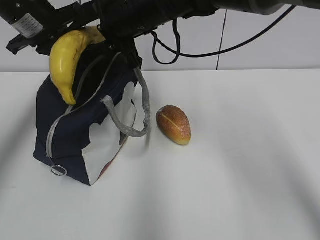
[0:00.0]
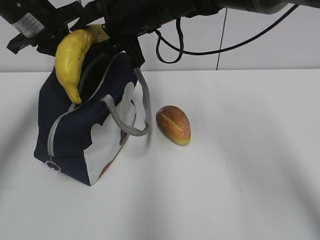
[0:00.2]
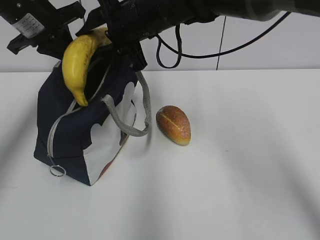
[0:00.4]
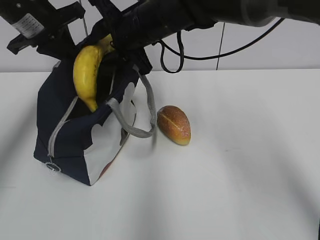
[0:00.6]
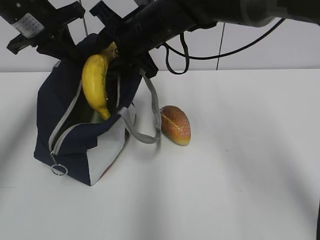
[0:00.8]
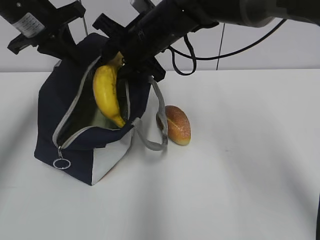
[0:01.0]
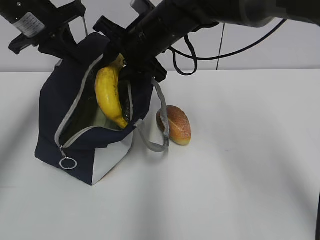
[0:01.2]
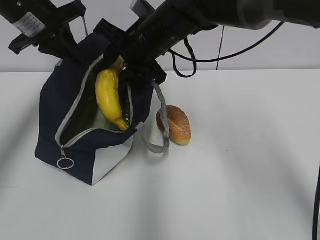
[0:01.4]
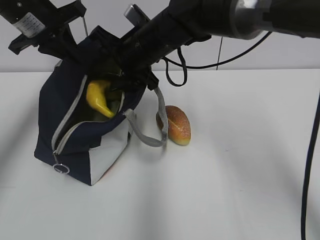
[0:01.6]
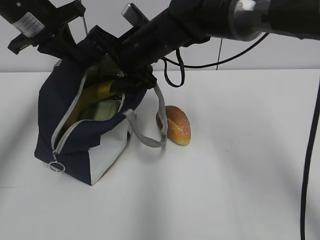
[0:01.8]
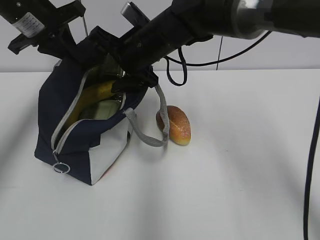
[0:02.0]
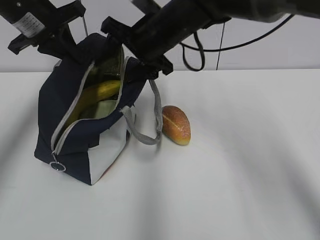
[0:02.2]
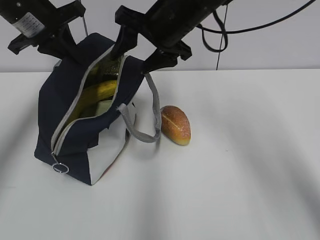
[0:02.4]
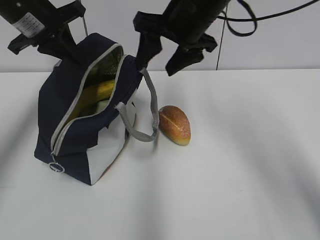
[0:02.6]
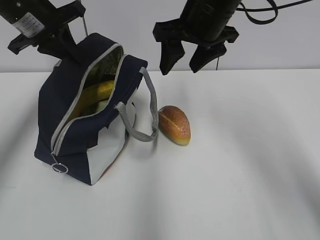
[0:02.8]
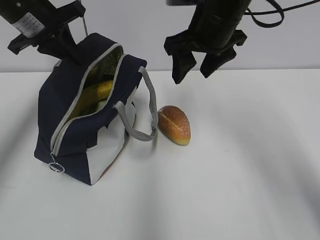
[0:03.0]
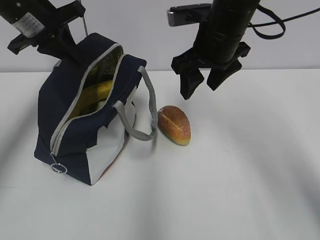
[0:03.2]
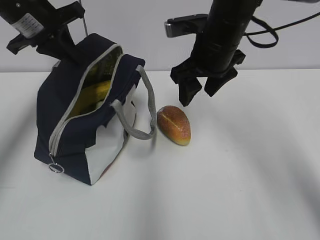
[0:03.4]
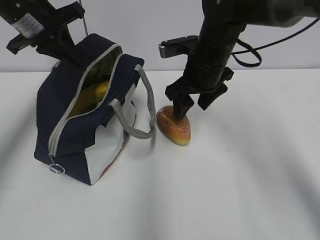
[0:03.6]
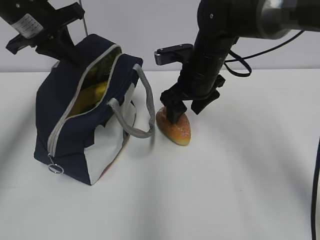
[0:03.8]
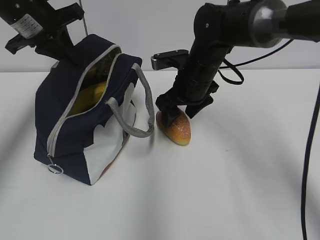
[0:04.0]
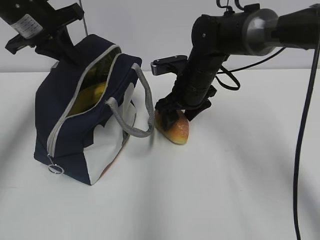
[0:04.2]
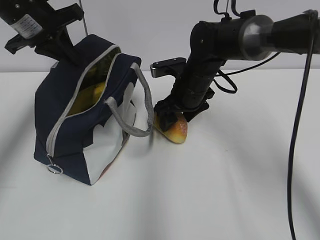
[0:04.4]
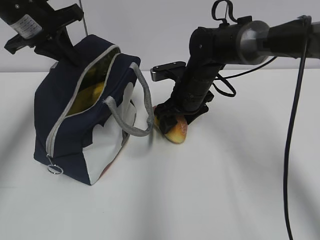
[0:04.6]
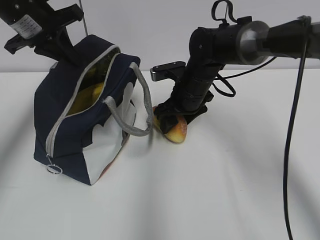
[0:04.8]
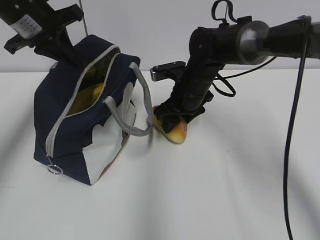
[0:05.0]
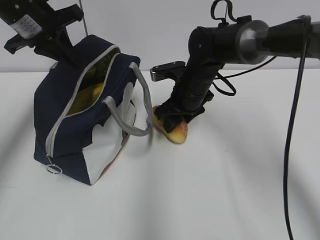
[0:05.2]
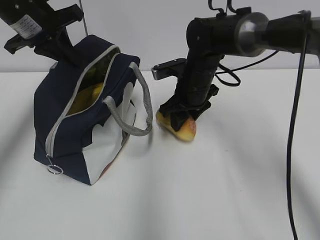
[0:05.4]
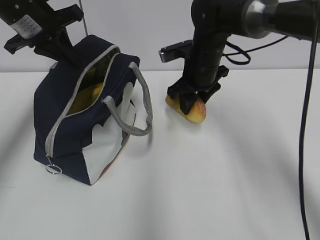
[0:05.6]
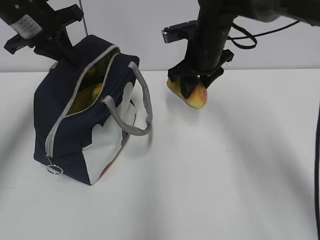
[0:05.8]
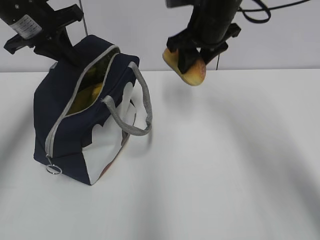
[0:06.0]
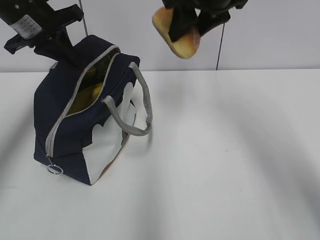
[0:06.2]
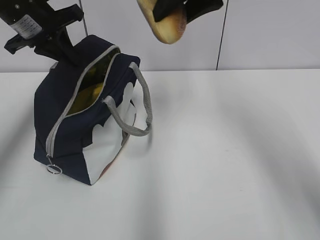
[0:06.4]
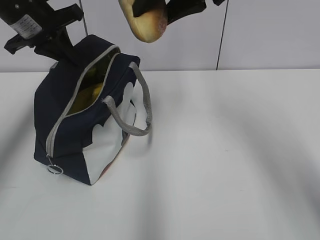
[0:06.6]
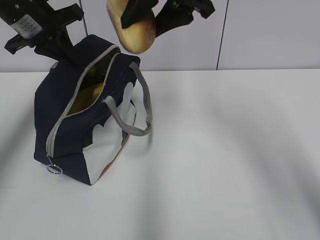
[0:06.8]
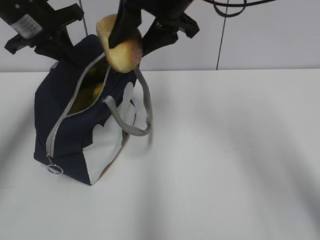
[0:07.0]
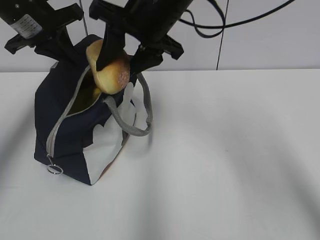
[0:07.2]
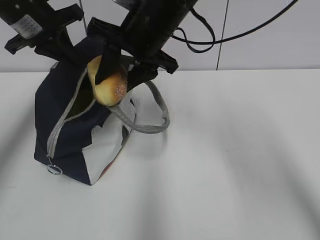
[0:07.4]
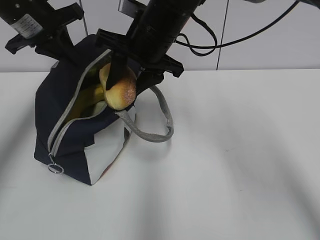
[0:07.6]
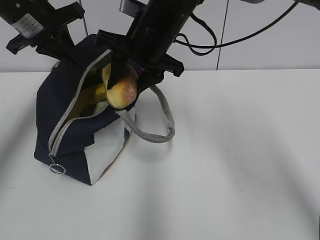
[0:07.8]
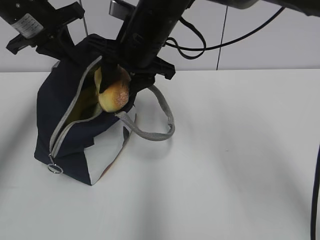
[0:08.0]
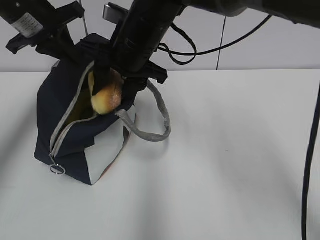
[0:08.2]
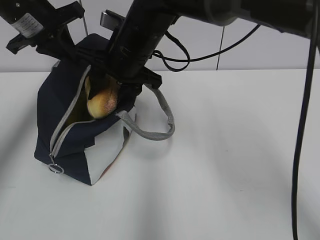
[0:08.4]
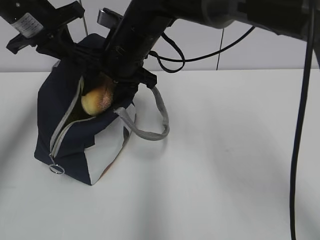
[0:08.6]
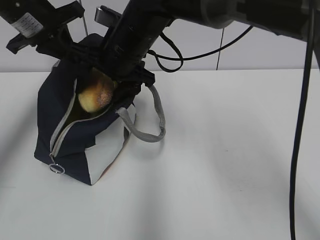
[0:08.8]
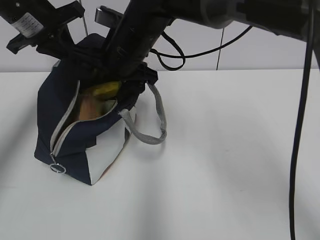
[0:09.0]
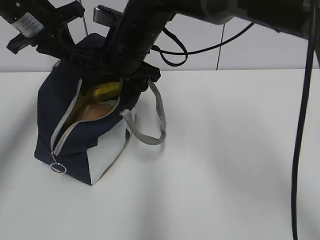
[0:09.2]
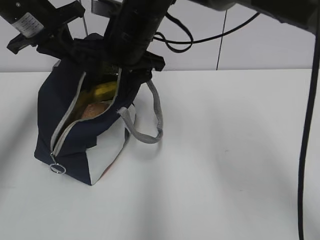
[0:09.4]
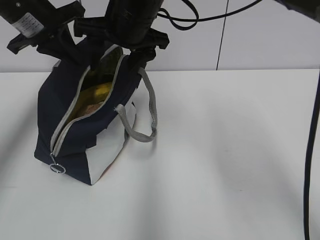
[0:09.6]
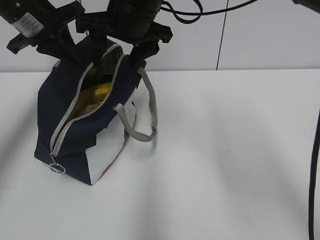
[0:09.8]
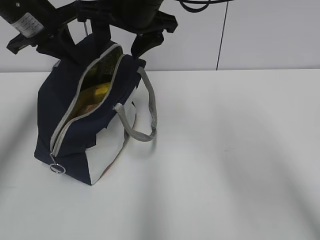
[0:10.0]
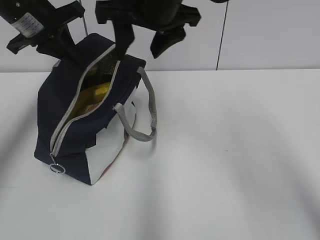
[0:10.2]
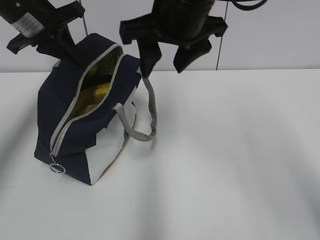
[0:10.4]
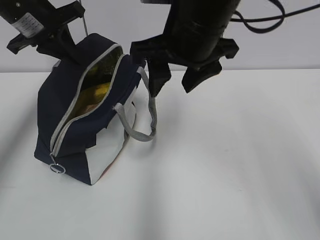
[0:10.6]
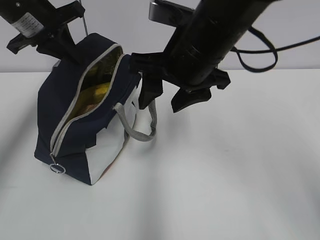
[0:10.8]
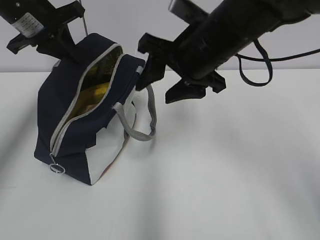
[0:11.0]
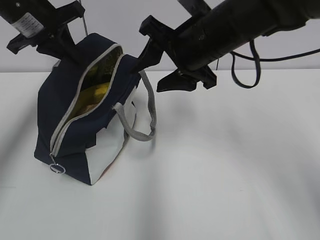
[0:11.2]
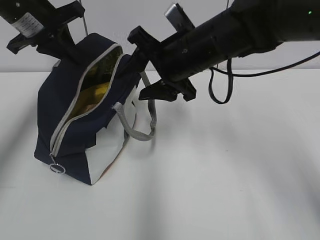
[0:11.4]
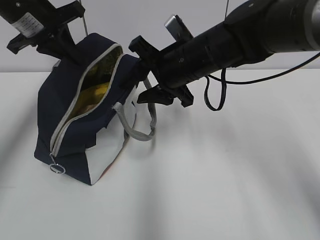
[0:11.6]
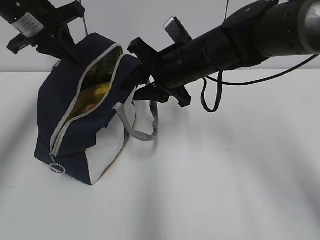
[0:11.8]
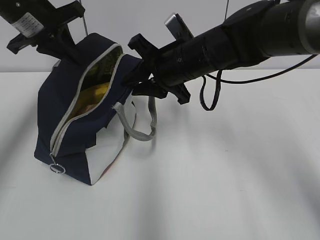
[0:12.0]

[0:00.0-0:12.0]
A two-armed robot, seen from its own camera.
Step, 0:02.0 to 0:05.2: Grab the bread with your right hand.
0:00.0 to 0:01.6: The right gripper travels downward by some 5 cm.
0:01.6 to 0:03.0: The right gripper shifts about 10 cm to the right and upward.
0:03.0 to 0:04.4: The right gripper heads downward, covering approximately 15 cm.
0:04.4 to 0:06.0: The right gripper travels upward by roughly 10 cm, and closes up.
0:06.0 to 0:07.6: The right gripper is displaced to the left by roughly 10 cm, and reaches roughly 10 cm upward, then returns.
0:07.6 to 0:09.0: The right gripper shifts by about 5 cm, and opens up.
0:09.0 to 0:10.4: The right gripper is displaced upward, to the right and backward by about 15 cm.
0:10.4 to 0:12.0: The right gripper heads downward, covering roughly 10 cm, and closes its fingers.

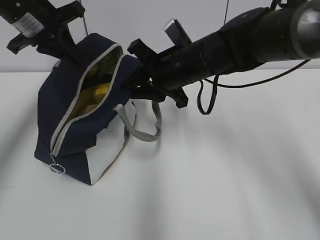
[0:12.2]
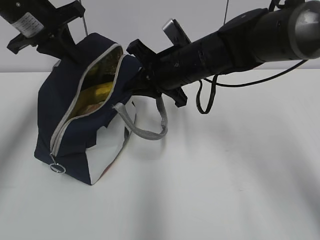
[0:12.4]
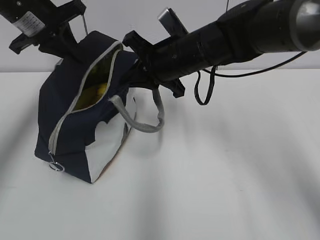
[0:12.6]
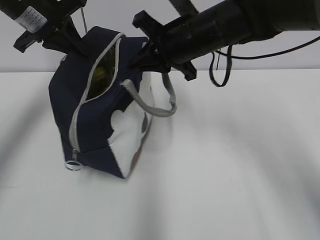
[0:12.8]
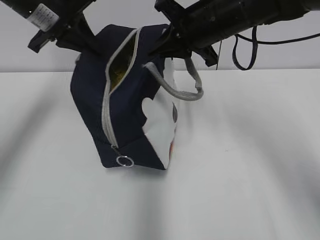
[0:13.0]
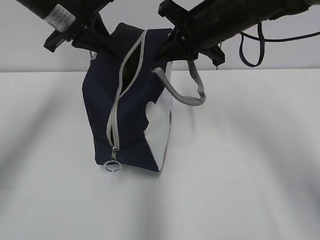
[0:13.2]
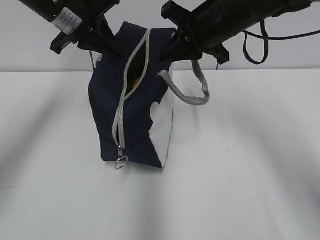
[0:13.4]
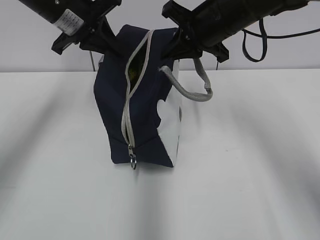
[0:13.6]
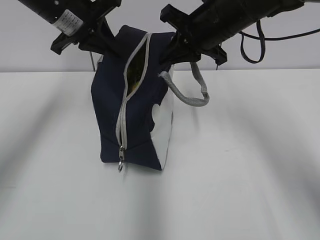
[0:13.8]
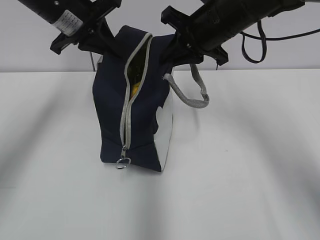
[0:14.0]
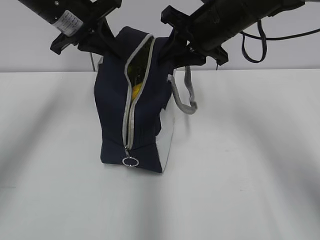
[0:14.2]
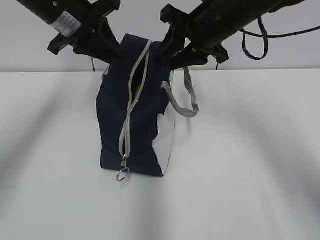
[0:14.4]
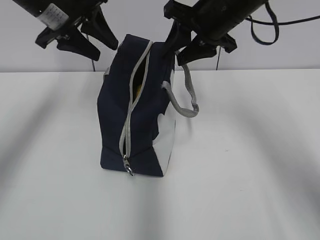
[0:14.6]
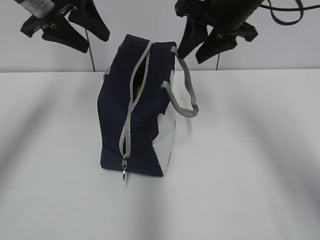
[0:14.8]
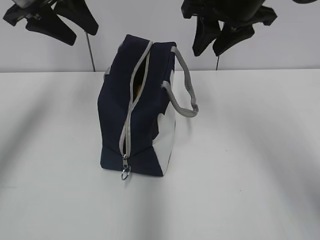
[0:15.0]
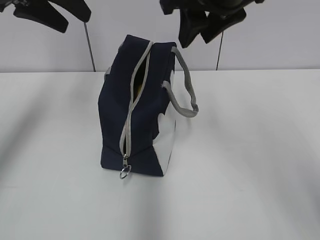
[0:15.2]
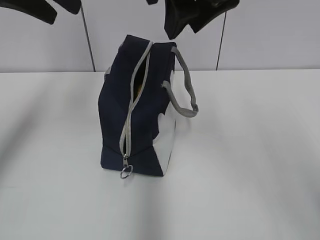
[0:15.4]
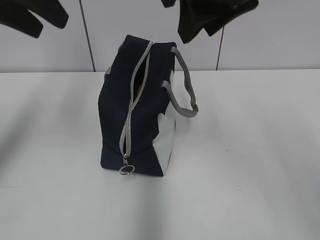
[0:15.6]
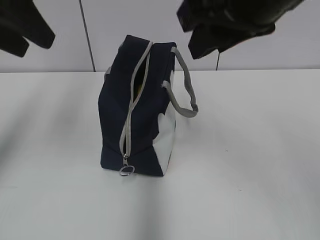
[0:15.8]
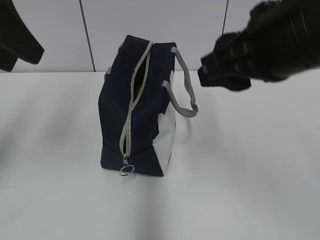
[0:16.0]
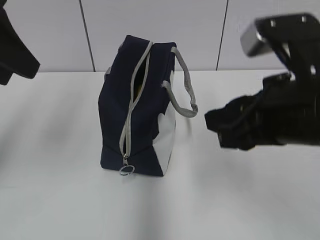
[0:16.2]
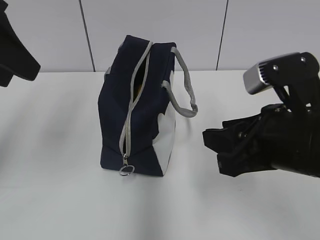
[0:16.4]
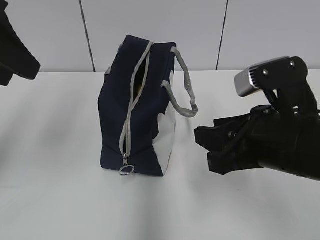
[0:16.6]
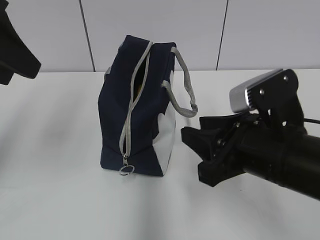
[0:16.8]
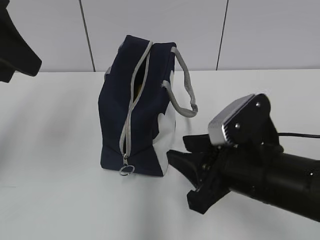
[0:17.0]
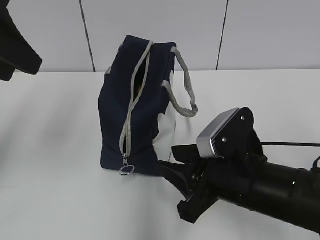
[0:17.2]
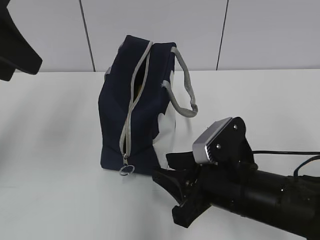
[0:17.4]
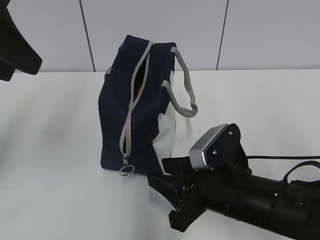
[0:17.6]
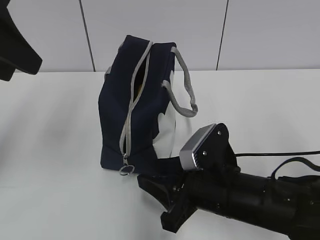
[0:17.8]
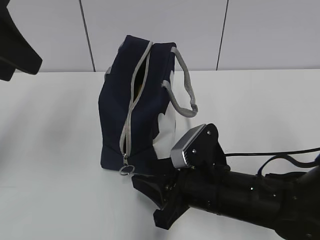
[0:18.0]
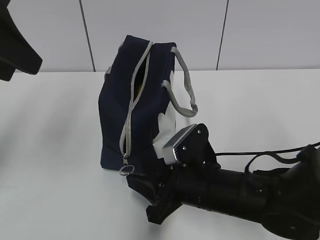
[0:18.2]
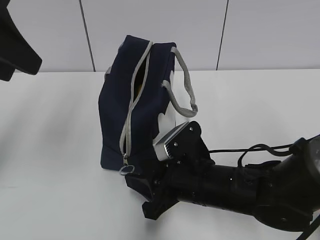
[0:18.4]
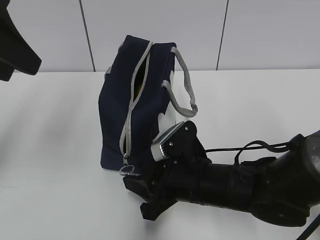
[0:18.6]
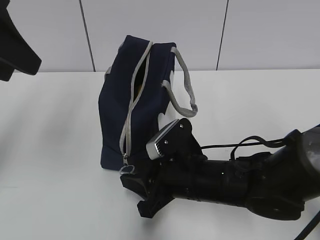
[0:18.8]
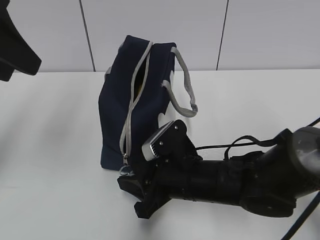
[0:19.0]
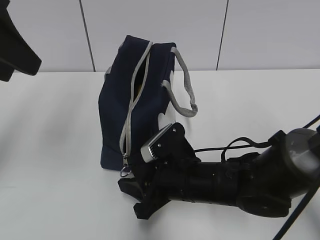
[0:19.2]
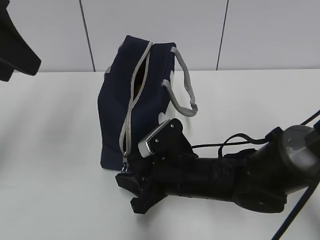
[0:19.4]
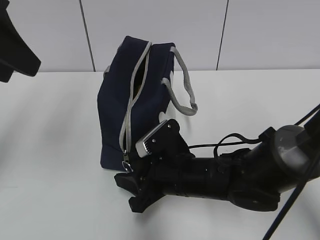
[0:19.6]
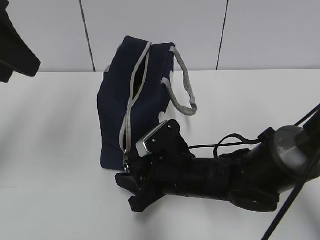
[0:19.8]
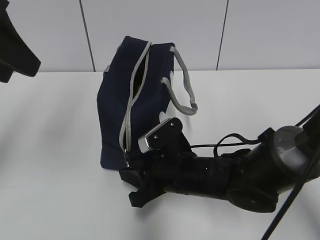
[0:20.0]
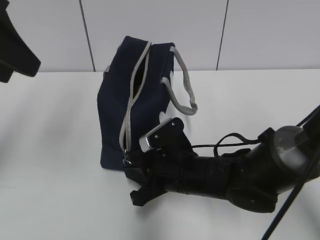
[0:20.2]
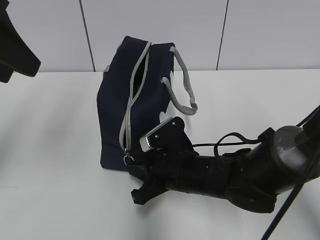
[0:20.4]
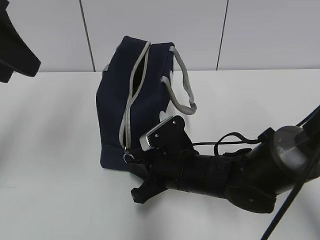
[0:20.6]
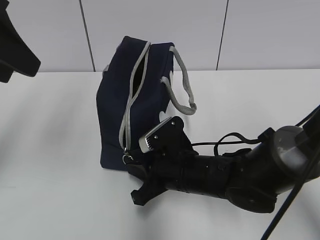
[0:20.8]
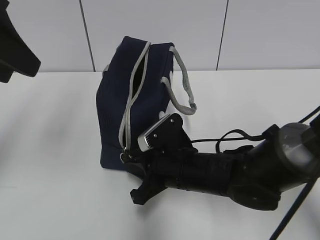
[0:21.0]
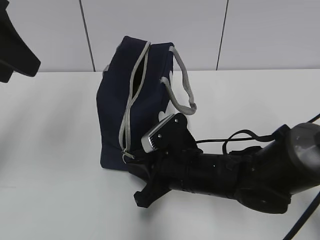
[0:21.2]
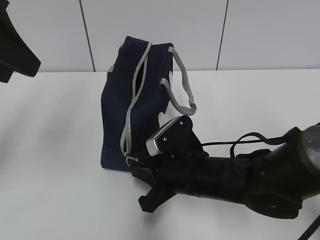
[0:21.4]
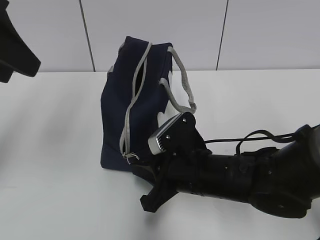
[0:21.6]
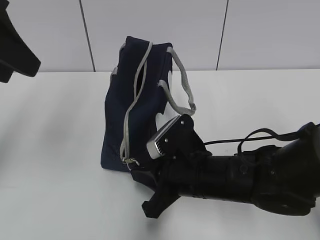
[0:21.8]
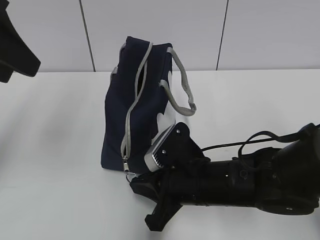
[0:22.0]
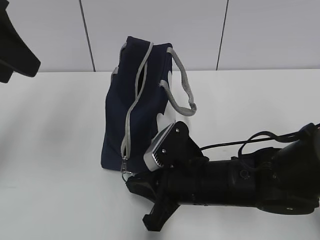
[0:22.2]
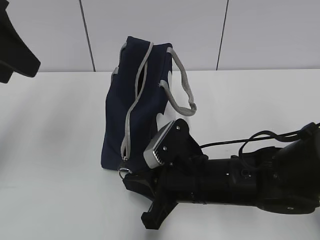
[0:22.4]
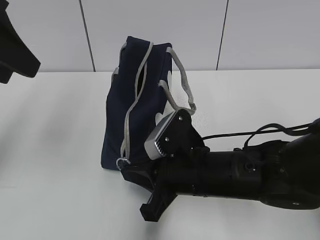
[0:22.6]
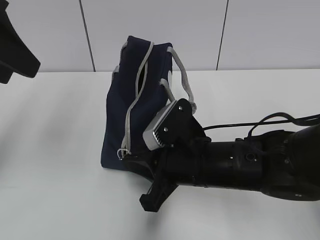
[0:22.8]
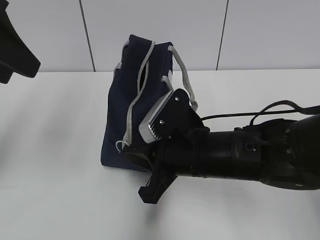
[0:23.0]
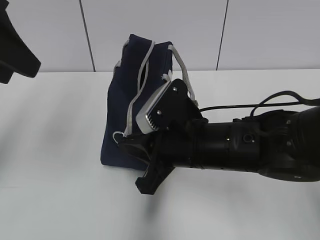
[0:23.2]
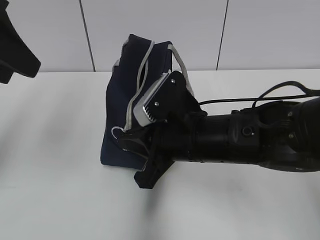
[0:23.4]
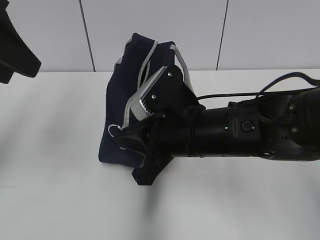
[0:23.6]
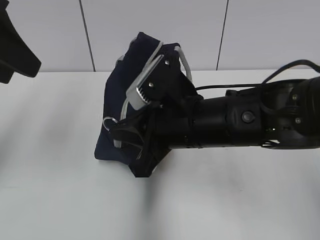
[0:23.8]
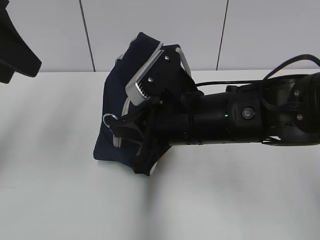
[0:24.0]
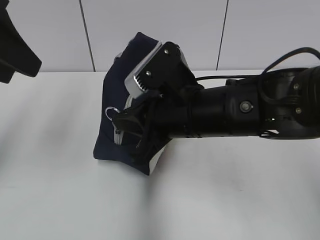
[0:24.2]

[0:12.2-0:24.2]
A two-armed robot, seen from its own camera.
Step, 0:12.6 to 0:14.4: Move the lunch bag to the right.
0:12.2 to 0:13.8: The right gripper is displaced upward and to the right by approximately 10 cm, and closes. Meanwhile the left gripper goes roughly 5 cm to the right.
0:13.8 to 0:15.2: The right gripper shifts about 10 cm upward and backward, and opens up. Meanwhile the left gripper is displaced upward by approximately 5 cm, and opens its fingers.
0:15.2 to 0:16.6: The left gripper shifts some 10 cm backward, while the right gripper shifts roughly 20 cm downward and backward.
0:16.6 to 0:18.2: The right gripper goes approximately 15 cm downward and to the left.
0:18.2 to 0:19.8: The grippers move only a little.
0:19.8 to 0:21.2: The right gripper closes its fingers.
0:21.2 to 0:22.6: The grippers move only a little.
0:22.6 to 0:24.2: The right gripper goes roughly 10 cm upward.
